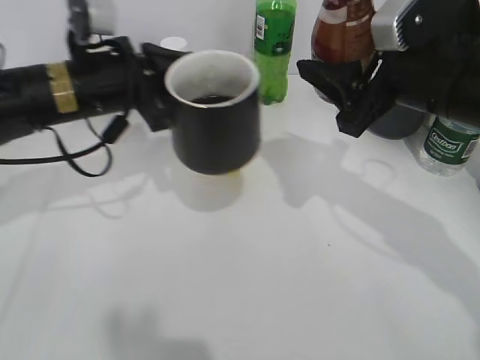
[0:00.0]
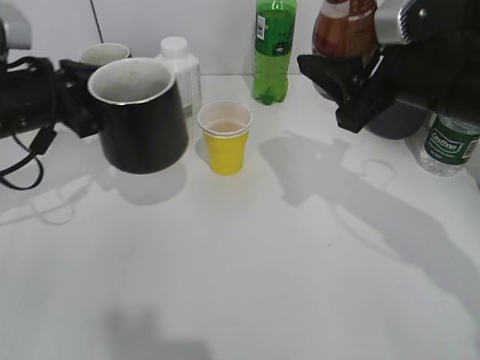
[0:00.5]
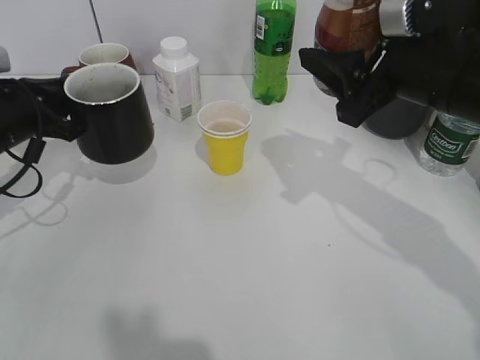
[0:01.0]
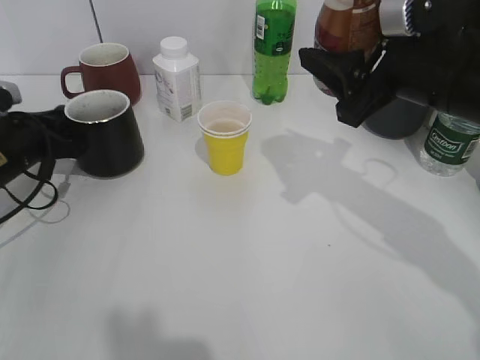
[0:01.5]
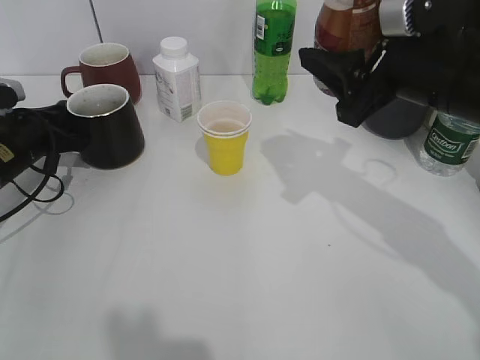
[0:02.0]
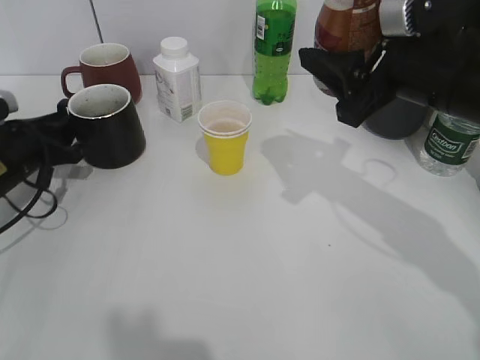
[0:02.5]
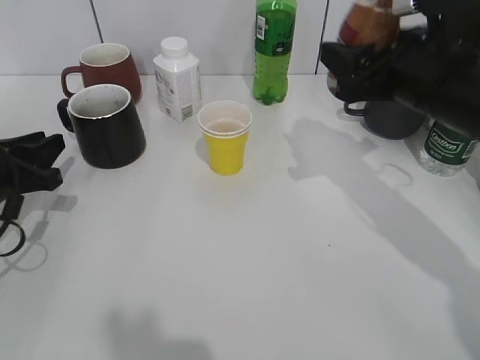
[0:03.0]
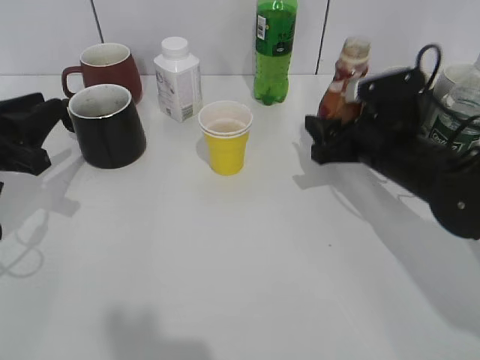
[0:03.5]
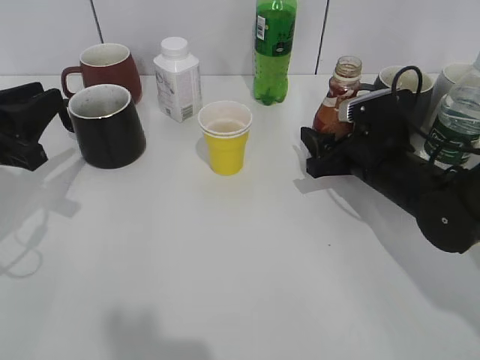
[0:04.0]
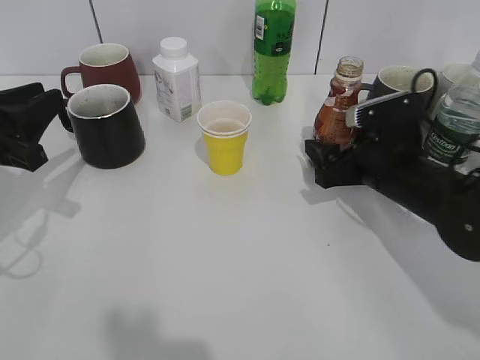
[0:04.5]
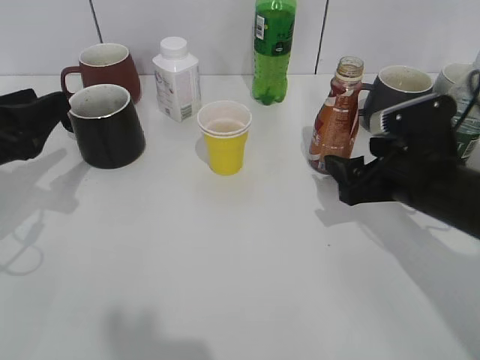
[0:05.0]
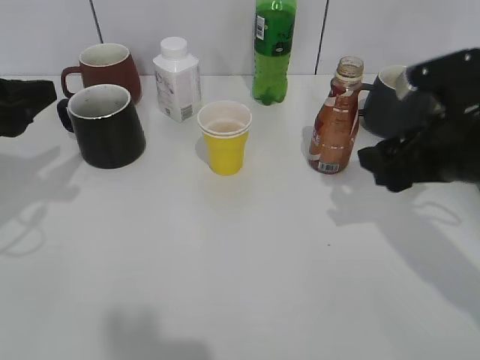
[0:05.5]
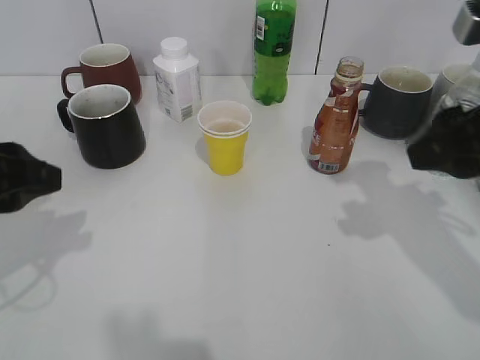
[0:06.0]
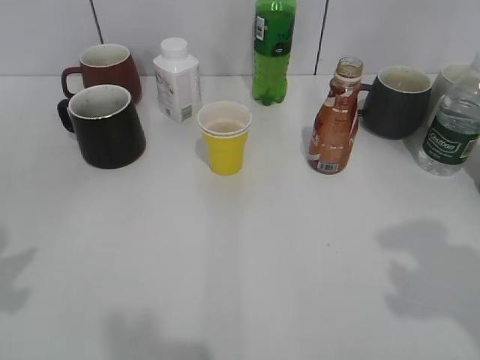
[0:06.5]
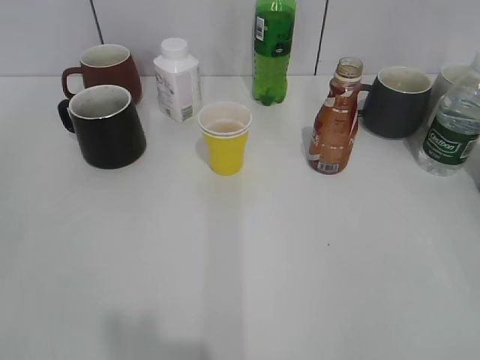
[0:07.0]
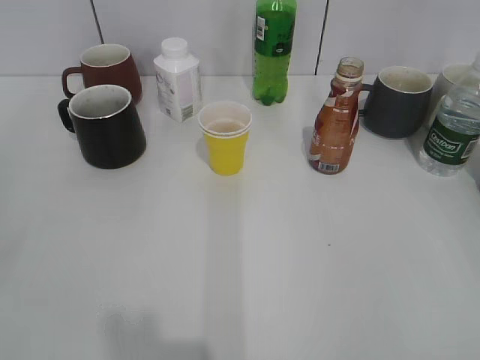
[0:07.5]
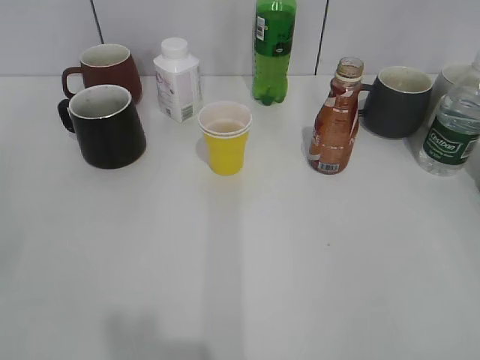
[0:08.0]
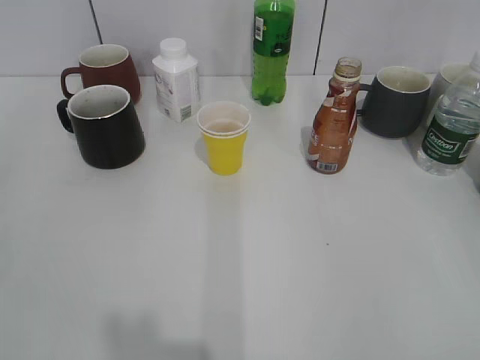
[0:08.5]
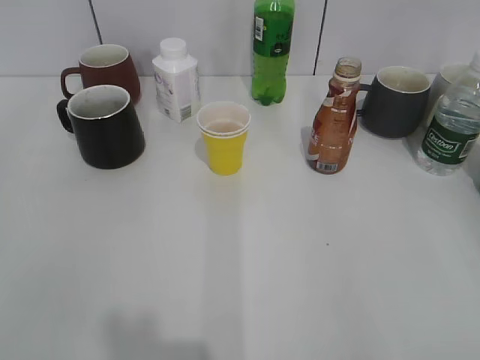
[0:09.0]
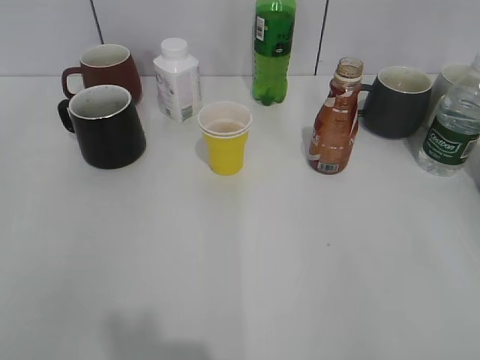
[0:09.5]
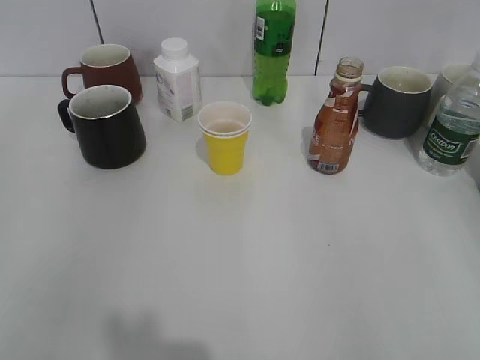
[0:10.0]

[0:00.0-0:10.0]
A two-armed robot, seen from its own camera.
Step, 0:00.0 to 0:02.5: Place the black cup on the table with left gripper.
Step, 0:03.0 to 0:04.5: Place the coffee bottle on the table with right gripper.
0:00.0 to 0:02.0: The left gripper travels to the left and downward by roughly 20 cm.
0:02.0 to 0:04.0: The right gripper travels downward by about 15 cm, while the left gripper travels backward and upward by roughly 15 cm, and opens.
0:04.0 to 0:06.0: The right gripper shifts about 20 cm upward and backward, and opens, while the left gripper heads backward and upward, covering some 10 cm.
0:06.0 to 0:08.0: The right gripper travels backward and to the right by approximately 25 cm; the left gripper shifts roughly 20 cm backward and to the left.
